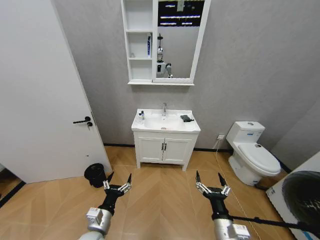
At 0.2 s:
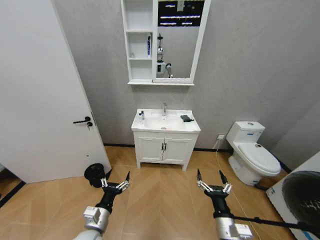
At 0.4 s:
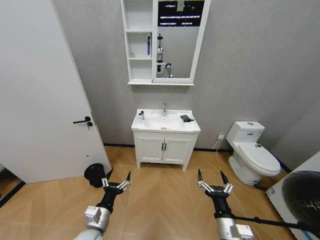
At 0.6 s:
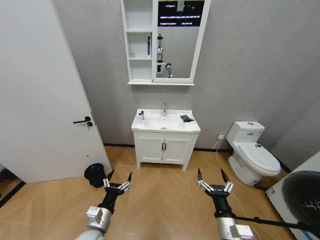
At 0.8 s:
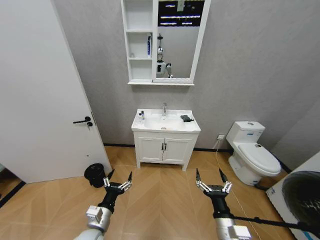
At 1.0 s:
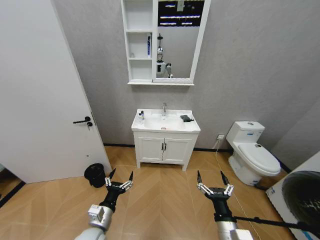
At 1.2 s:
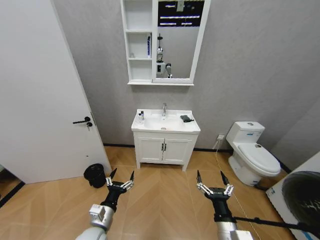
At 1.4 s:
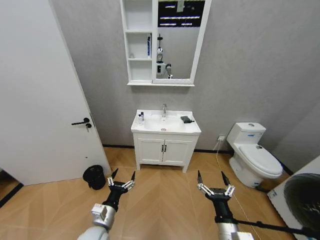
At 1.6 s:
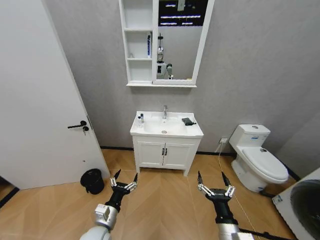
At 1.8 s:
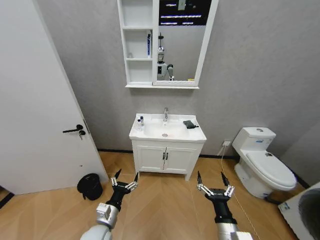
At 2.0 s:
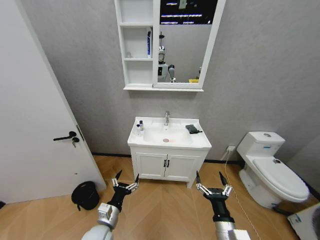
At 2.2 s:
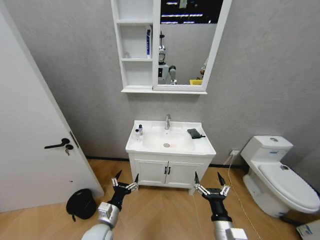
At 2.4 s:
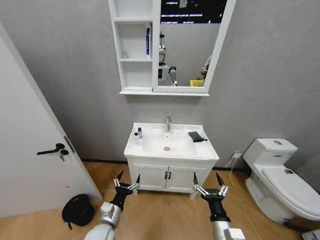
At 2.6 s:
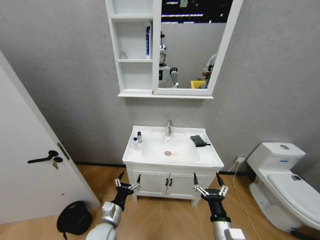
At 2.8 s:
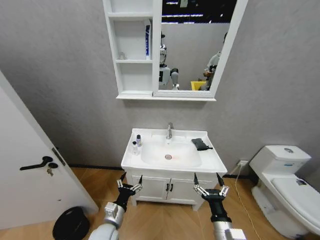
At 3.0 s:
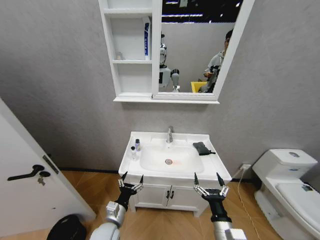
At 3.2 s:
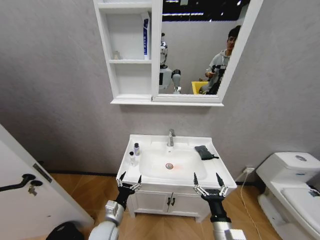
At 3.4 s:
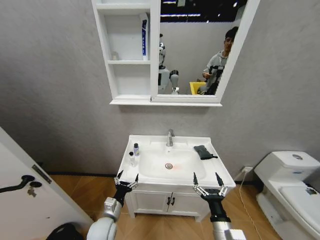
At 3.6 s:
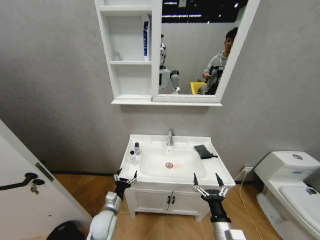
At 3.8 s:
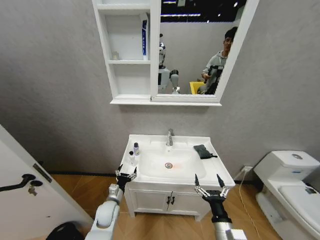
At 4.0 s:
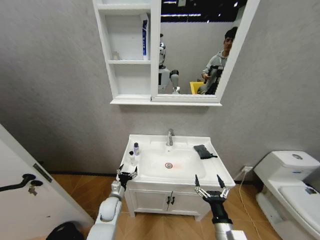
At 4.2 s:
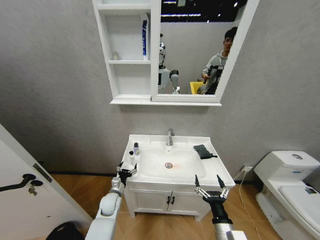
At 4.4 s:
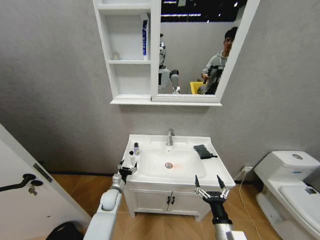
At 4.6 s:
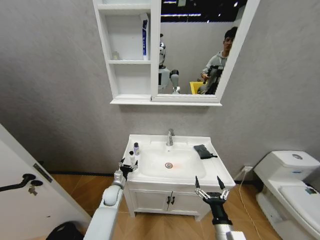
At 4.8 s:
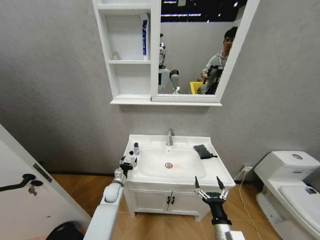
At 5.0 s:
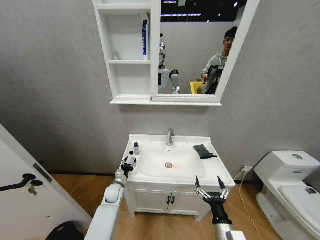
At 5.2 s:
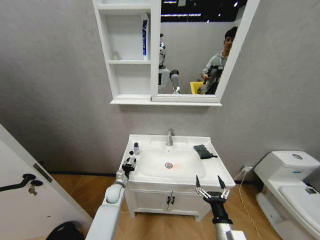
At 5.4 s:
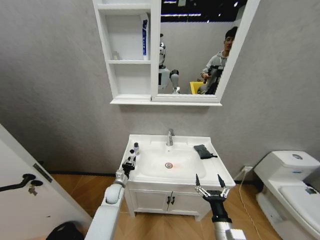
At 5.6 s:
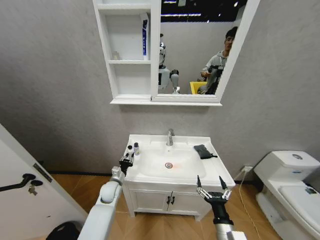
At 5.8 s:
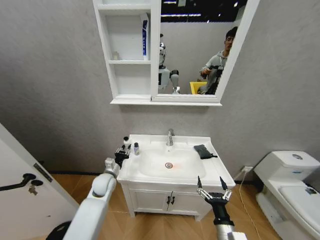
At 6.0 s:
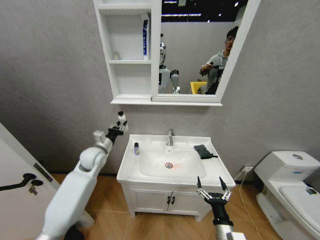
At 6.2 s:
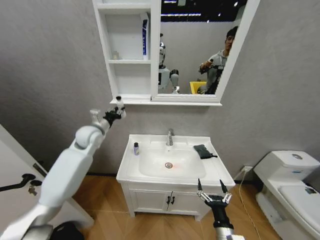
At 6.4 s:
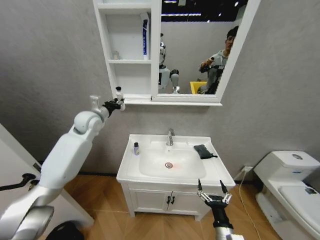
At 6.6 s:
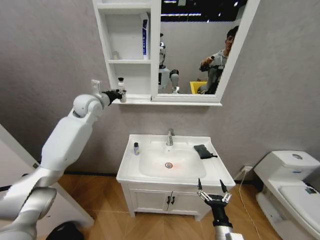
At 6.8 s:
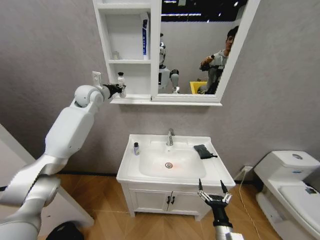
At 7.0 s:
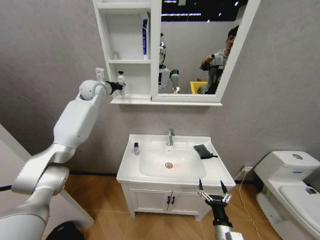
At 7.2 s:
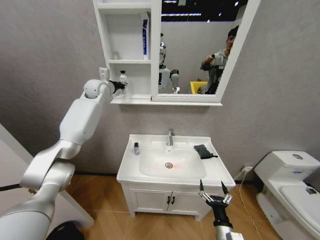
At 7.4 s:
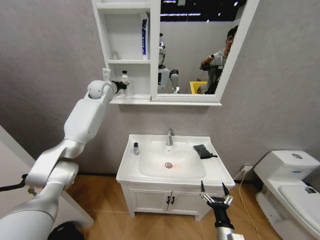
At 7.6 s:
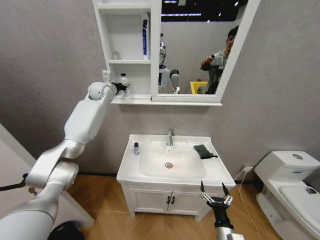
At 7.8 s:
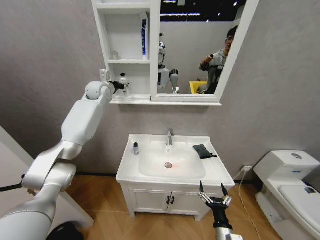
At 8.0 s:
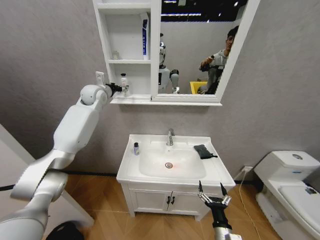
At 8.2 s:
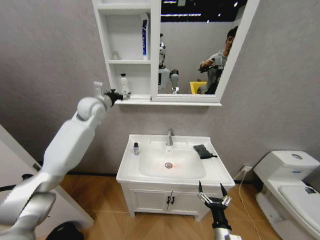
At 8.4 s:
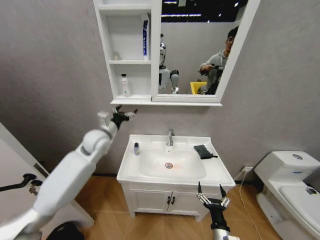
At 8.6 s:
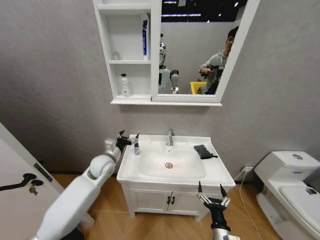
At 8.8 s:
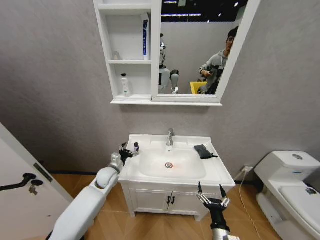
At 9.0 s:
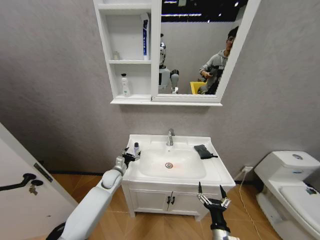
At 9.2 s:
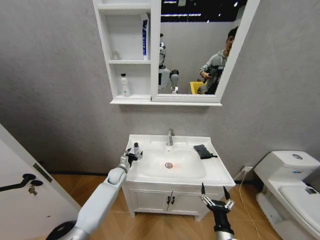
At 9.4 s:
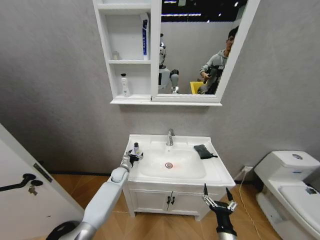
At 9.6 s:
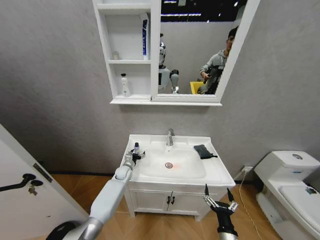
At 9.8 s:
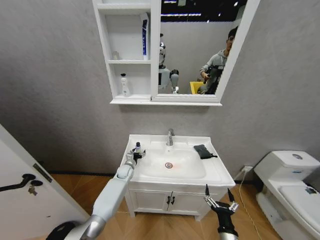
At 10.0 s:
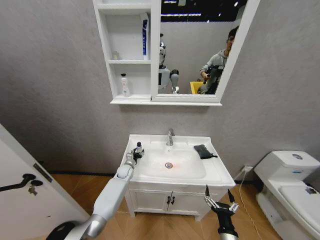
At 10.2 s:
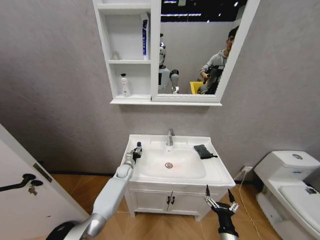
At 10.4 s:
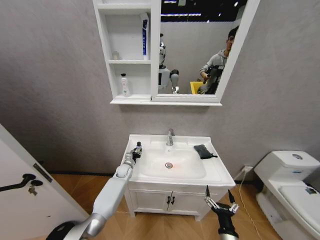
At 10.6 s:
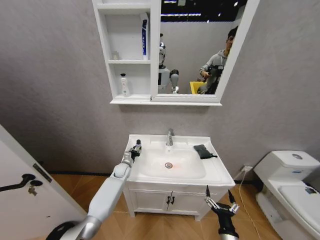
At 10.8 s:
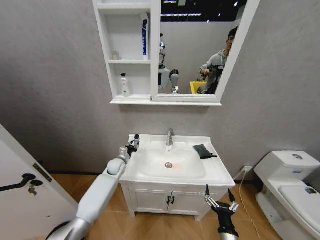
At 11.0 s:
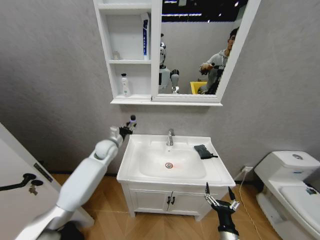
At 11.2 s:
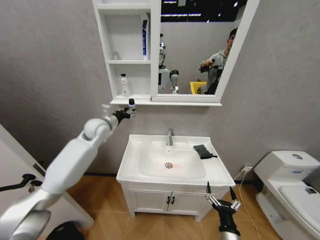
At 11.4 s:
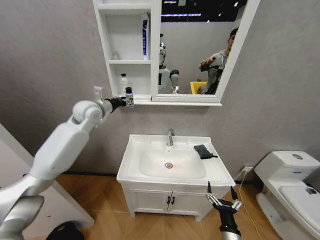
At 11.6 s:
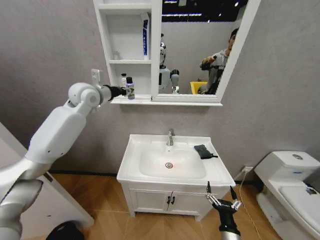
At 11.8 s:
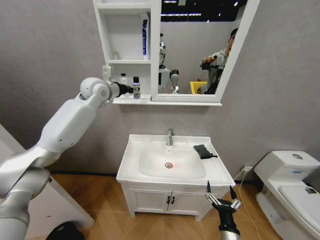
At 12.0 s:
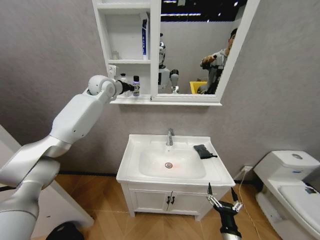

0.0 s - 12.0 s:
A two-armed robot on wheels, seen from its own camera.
Task of the whole recording: Move facial cleanser and shampoo from washbasin to cabinet, then wipe washbasin with towel.
3.0 s - 4.4 s: The left gripper moves forward, roughly 15 cm.
4.4 s - 6.0 s: The left gripper heads upward, covering about 25 cm, and closes up.
6.0 s - 7.6 s: The left gripper moves upward and forward, some 30 cm.
7.6 s - 9.0 s: The left gripper moves downward and backward, some 40 cm, and opens its fingers.
9.0 s - 10.4 s: The left gripper moves forward, about 5 cm, and closes.
10.4 s - 12.0 s: The left gripper goes roughly 50 cm upward.

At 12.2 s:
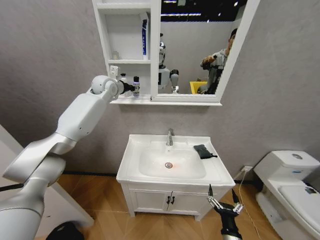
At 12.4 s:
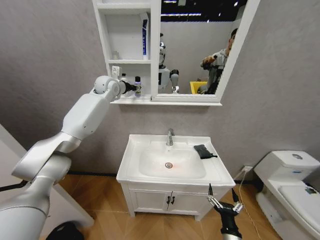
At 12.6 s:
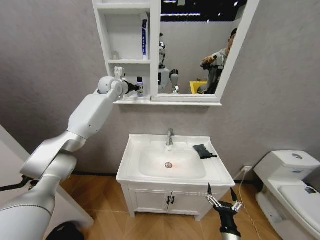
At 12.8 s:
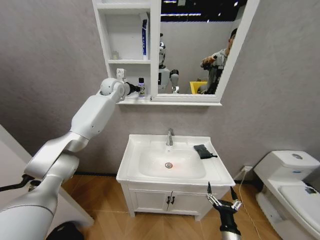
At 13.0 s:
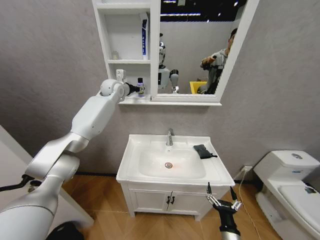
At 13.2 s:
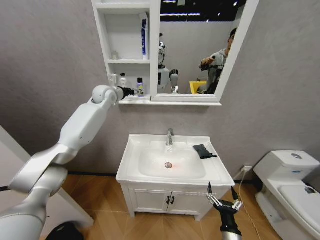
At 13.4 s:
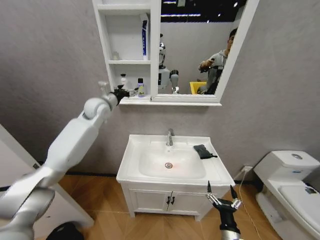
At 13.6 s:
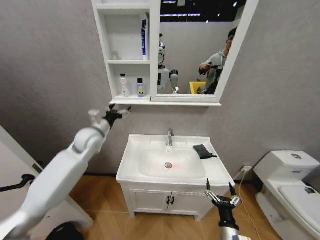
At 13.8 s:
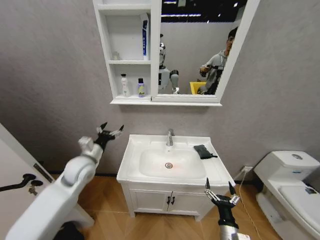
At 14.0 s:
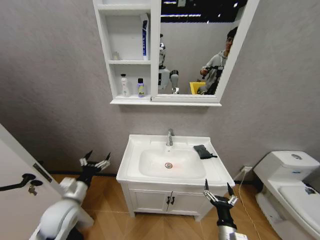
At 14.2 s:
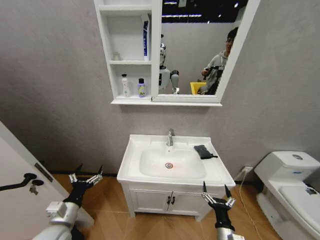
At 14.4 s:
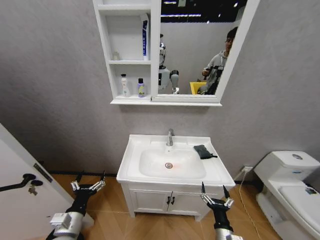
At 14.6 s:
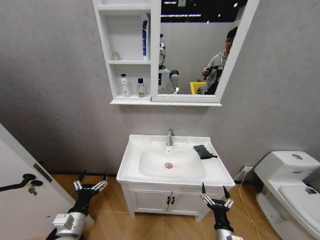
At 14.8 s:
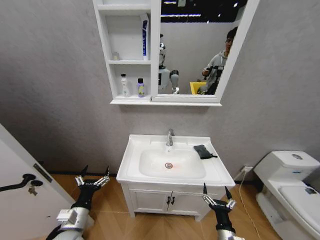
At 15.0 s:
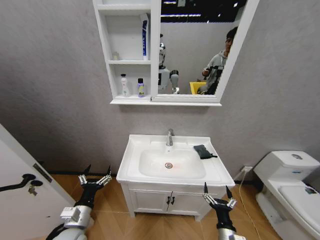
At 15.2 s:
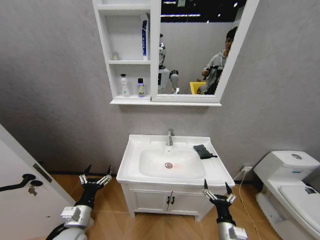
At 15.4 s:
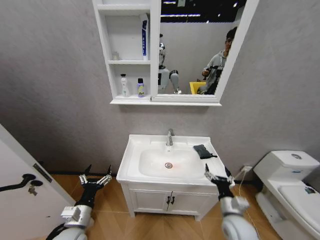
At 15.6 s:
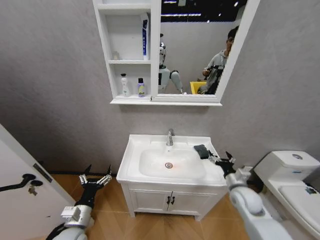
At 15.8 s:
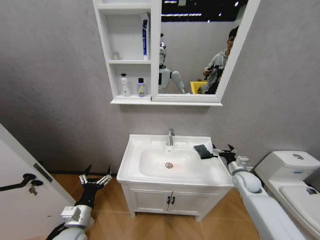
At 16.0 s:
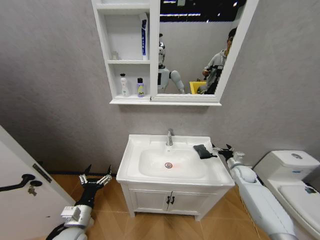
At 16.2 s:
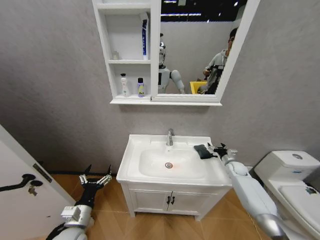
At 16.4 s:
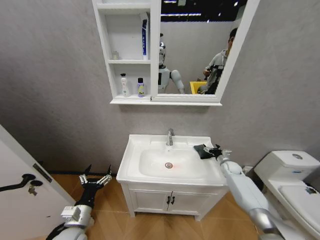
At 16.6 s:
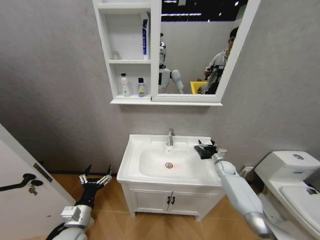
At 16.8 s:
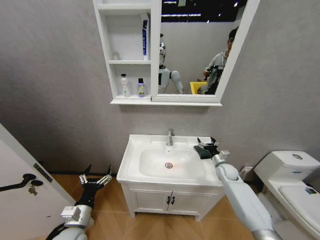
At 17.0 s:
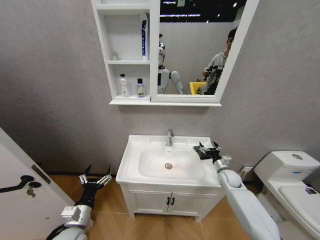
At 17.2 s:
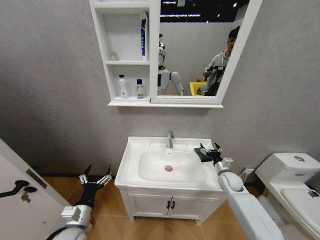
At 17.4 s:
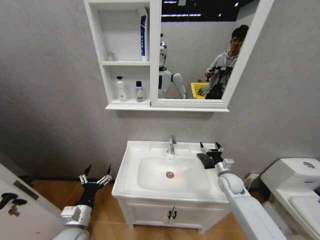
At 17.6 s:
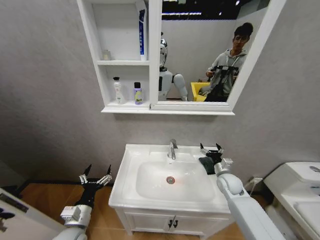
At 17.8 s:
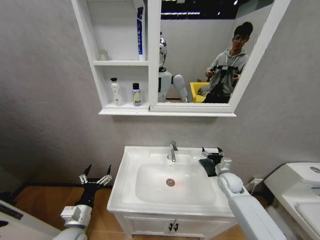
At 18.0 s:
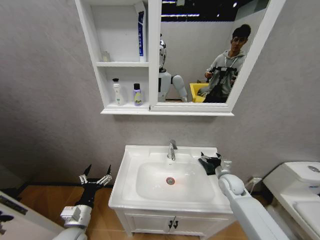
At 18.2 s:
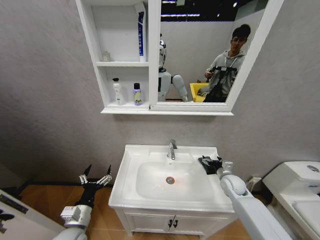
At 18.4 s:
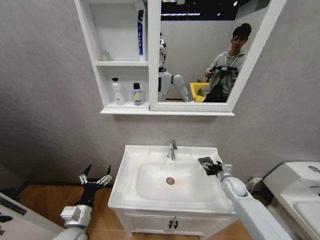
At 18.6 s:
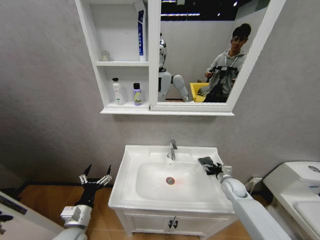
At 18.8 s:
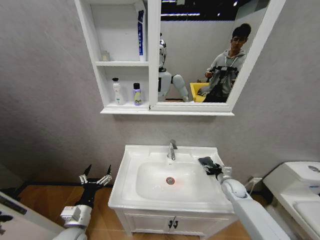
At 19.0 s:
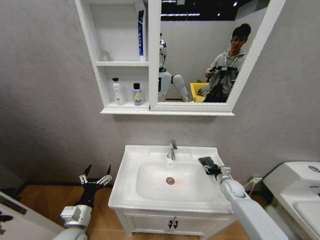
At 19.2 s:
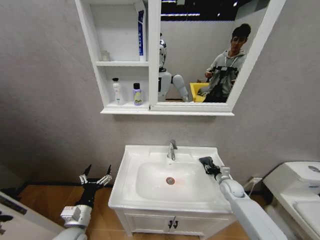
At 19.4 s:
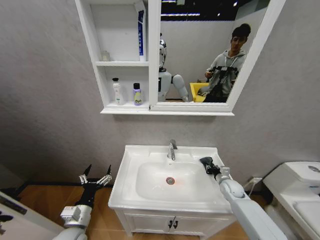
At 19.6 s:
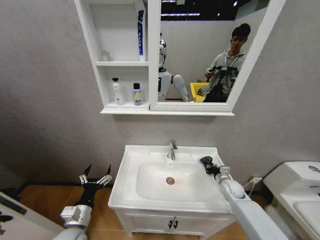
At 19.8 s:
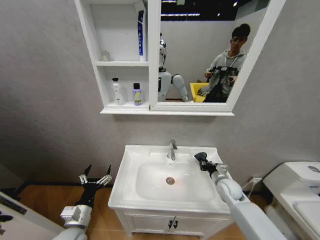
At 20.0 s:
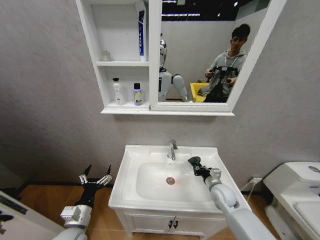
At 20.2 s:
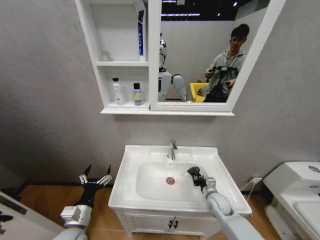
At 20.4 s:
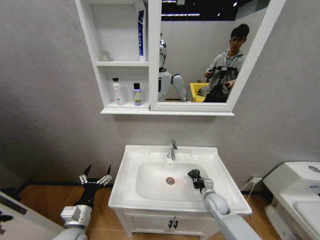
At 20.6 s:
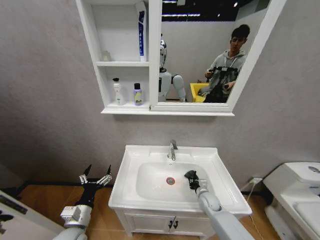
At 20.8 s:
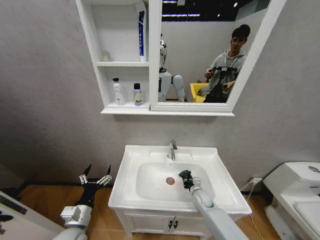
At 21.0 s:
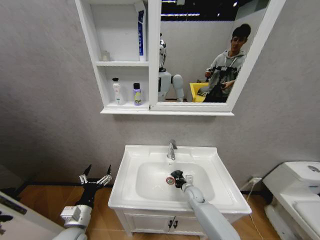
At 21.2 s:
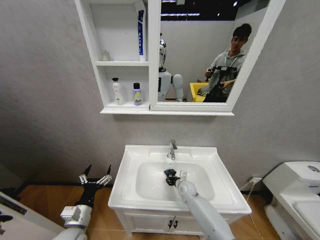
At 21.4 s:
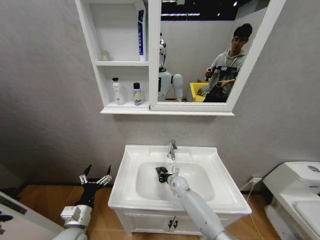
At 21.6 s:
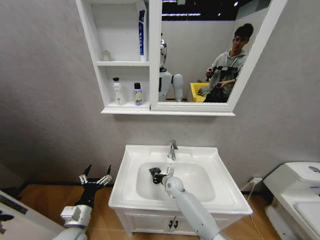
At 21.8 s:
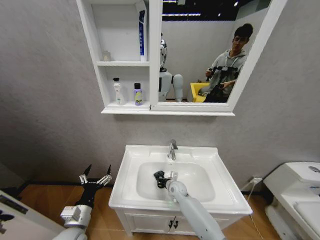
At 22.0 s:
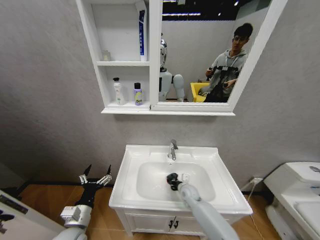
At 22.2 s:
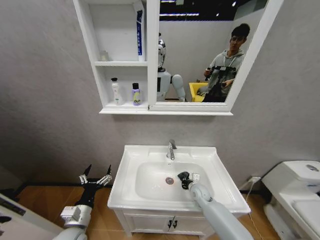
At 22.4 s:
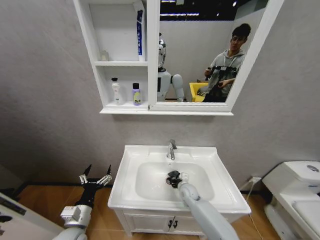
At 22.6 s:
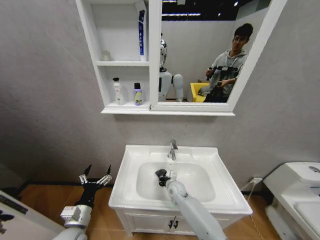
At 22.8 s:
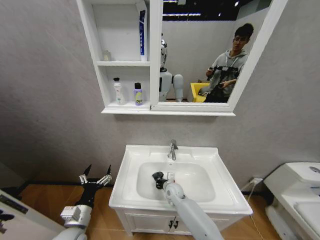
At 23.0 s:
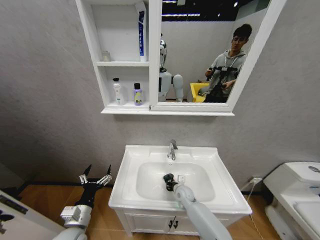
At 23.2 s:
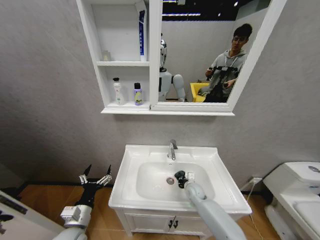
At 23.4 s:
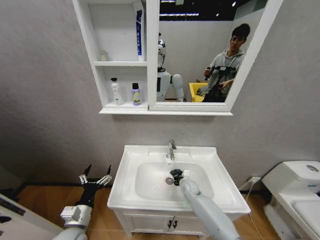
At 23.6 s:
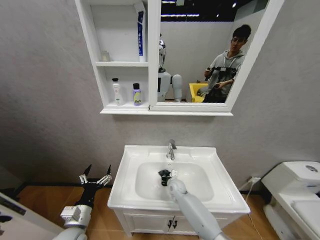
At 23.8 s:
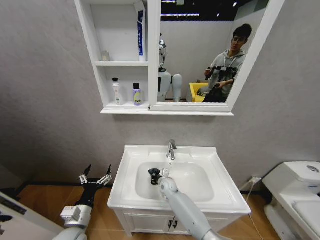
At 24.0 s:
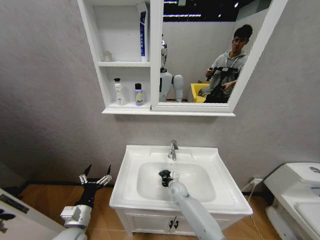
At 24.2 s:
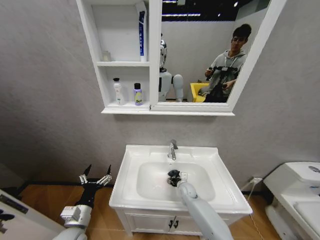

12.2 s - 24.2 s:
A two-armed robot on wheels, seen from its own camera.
Task of the whole recording: Move facial cleanser and shampoo from washbasin to cabinet, then wipe washbasin with towel.
12.2 s - 13.8 s: The left gripper goes about 35 cm downward and backward, and opens its fingers.
13.8 s - 15.2 s: The left gripper is displaced backward and downward by approximately 20 cm.
15.2 s - 16.6 s: The right gripper shifts approximately 40 cm forward and to the right.
16.6 s - 18.2 s: The right gripper is displaced backward by roughly 10 cm.
18.2 s - 19.8 s: The right gripper closes.
19.8 s - 21.2 s: The right gripper heads to the left and downward, covering some 20 cm.
21.2 s - 22.6 s: The right gripper goes left and right, roughly 15 cm each way, reversing 2 times.
22.6 s - 24.2 s: The right gripper swings left and right, about 15 cm each way, with 2 reversals.
